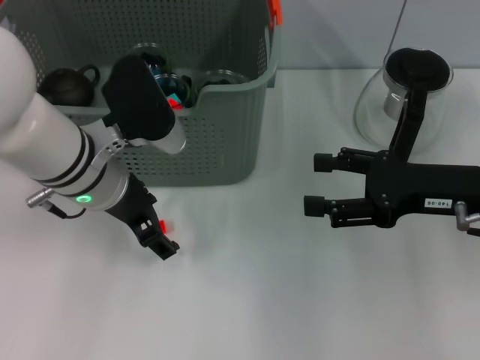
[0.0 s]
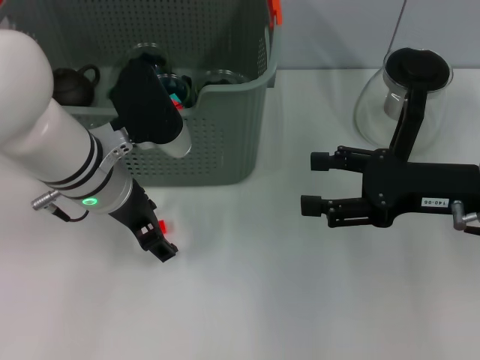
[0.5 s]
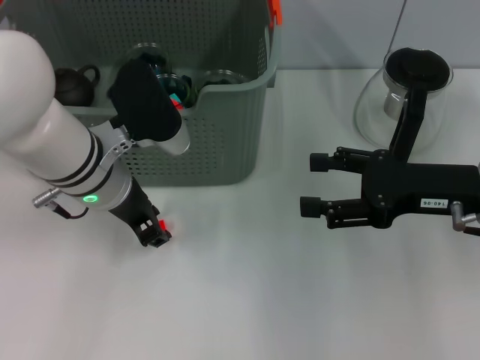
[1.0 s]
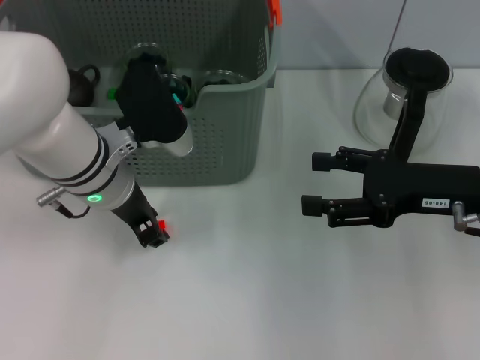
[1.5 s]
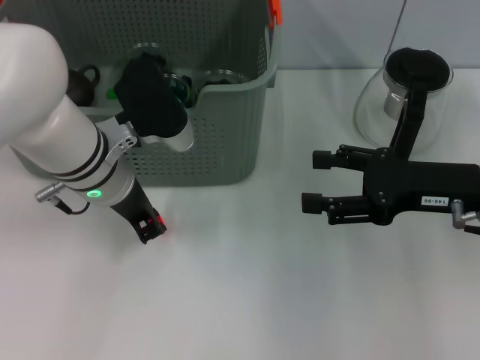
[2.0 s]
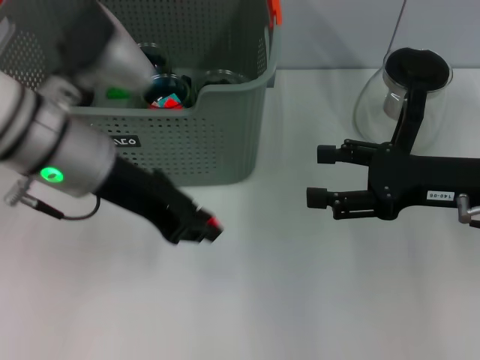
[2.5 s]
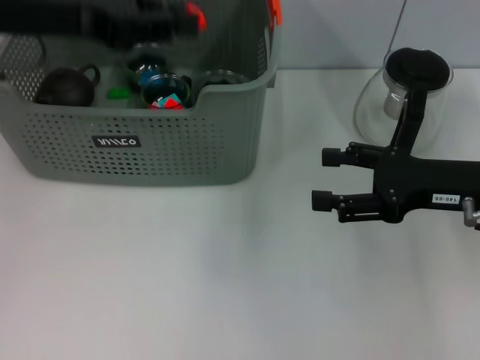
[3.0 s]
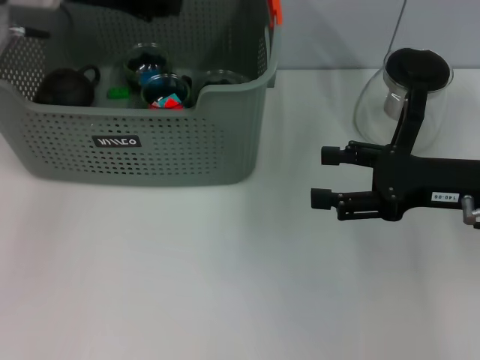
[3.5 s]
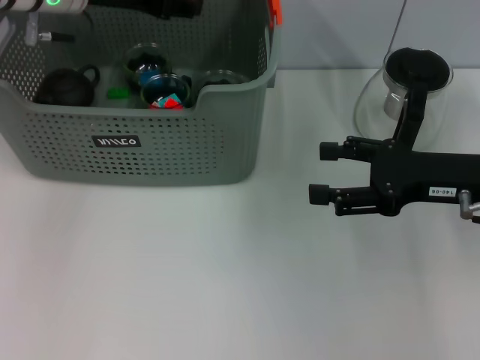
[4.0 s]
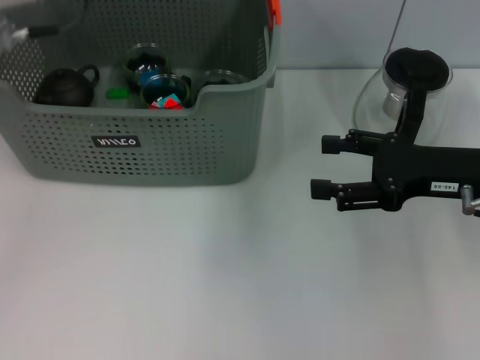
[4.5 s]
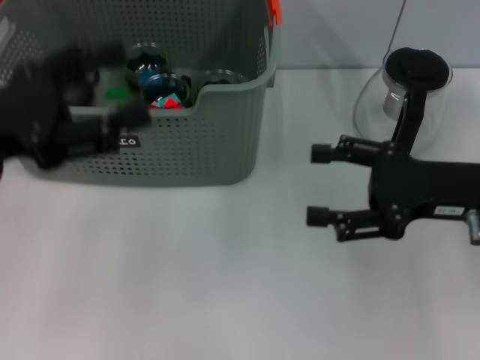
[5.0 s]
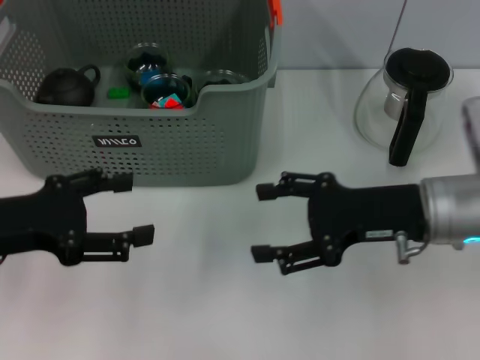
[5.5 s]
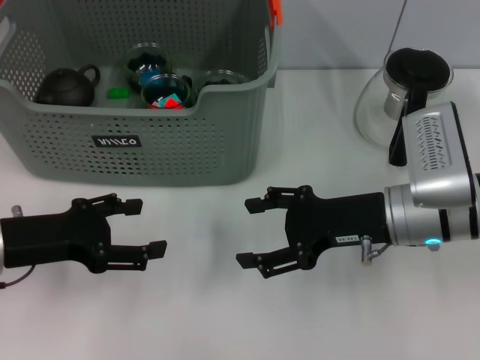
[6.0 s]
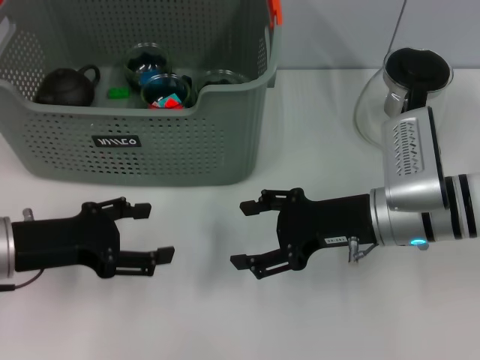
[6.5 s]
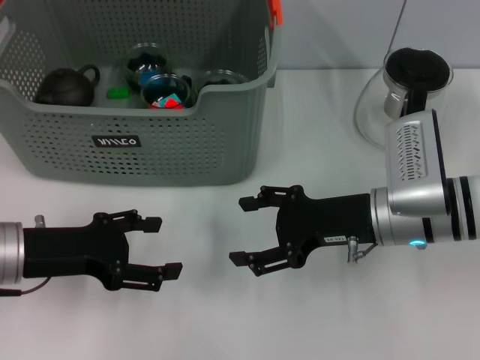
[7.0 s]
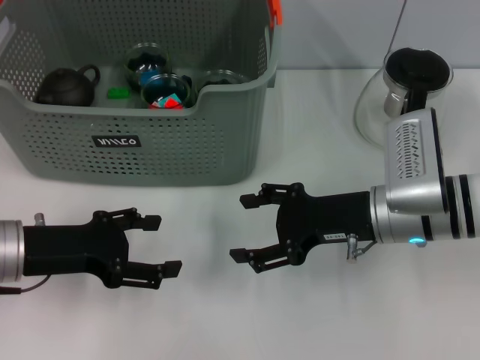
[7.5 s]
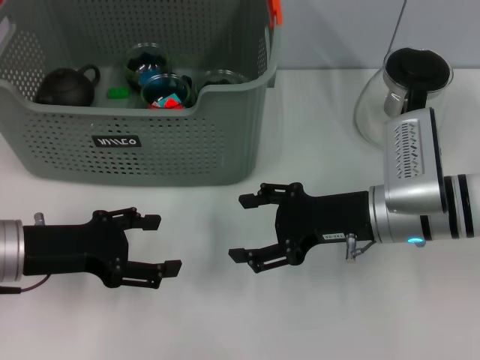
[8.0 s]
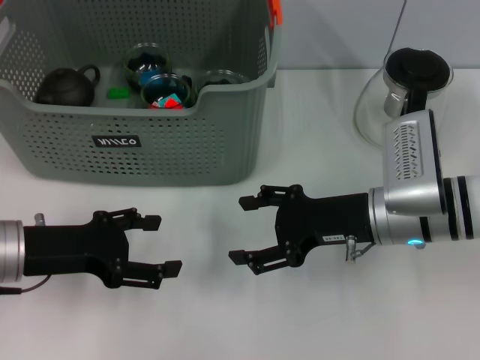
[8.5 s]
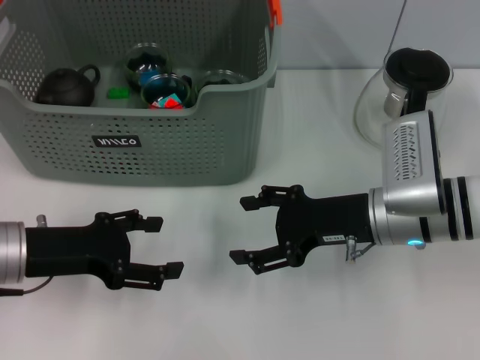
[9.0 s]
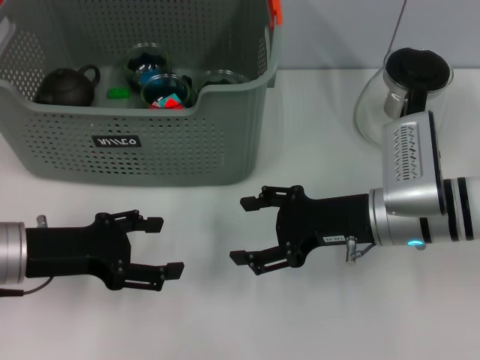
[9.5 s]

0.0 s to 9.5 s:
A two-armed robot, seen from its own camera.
Task of the whole recording: pick up the teacup on the table and place it into the storage bin, pick up the block on the table and place it into the storage bin.
Step, 0.0 to 2.0 s: Grasp the orange block with left gripper.
Step, 2.5 to 4.0 s: Place the orange block in the storage box with left gripper.
0.0 to 2.0 s: The left gripper closes.
2.0 to 4.0 s: The left gripper moves upward, forward and to the left, about 15 cm.
4.0 to 5.5 s: The left gripper shifts roughly 25 cm backward, downward and to the left, and opens. Meanwhile the right gripper heads to the left, covering approximately 5 cm.
5.5 to 7.5 s: The left gripper shifts some 5 cm downward.
7.5 to 9.5 s: Neither gripper changes place.
